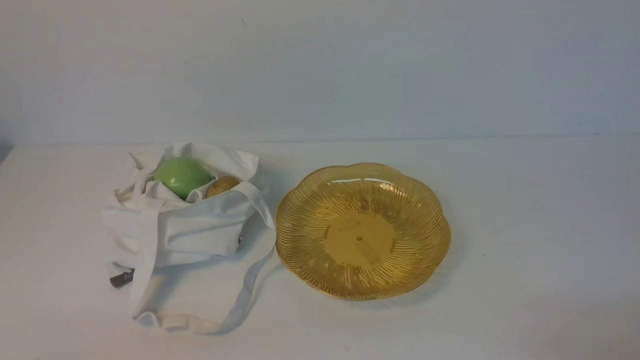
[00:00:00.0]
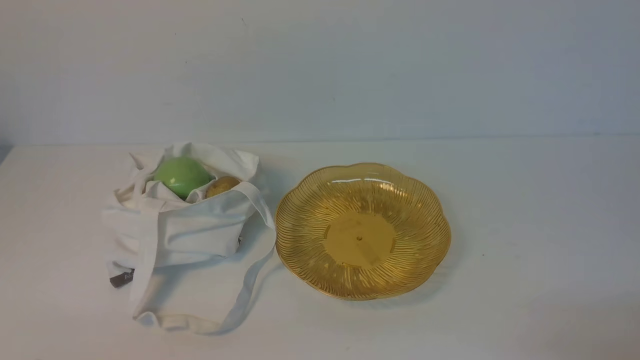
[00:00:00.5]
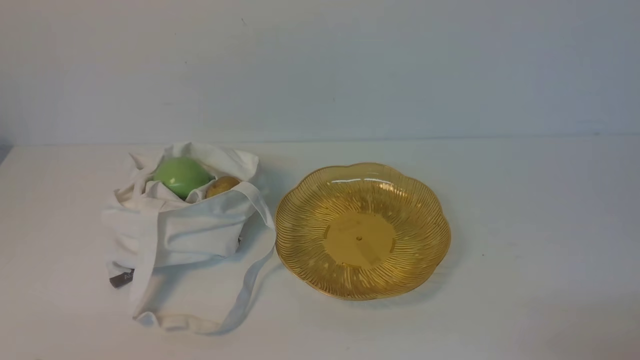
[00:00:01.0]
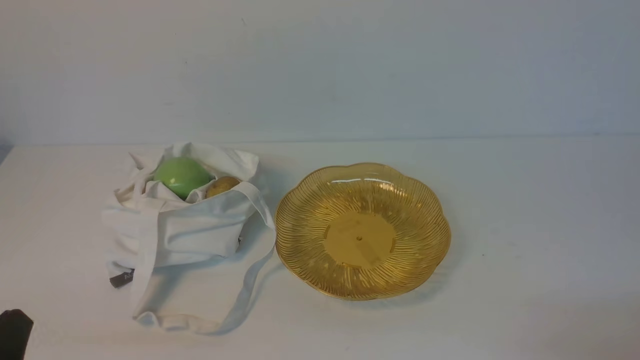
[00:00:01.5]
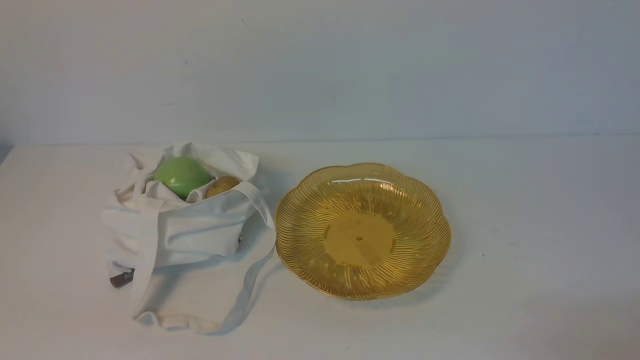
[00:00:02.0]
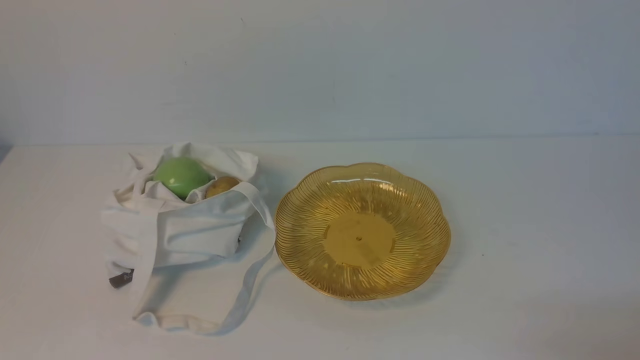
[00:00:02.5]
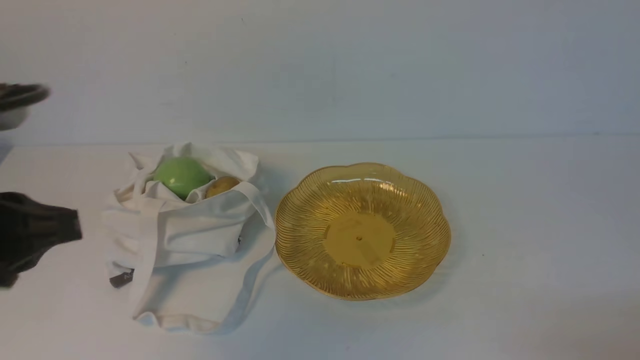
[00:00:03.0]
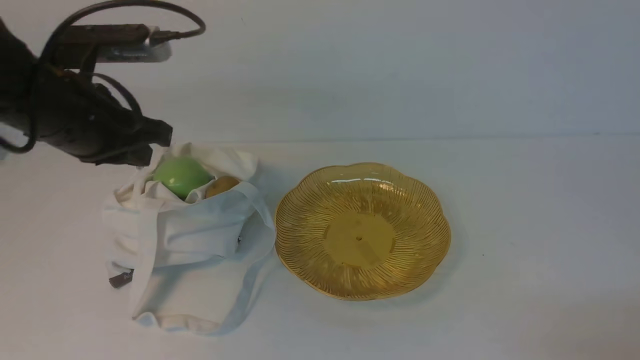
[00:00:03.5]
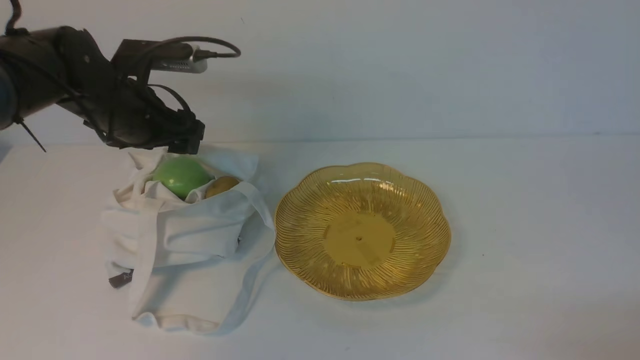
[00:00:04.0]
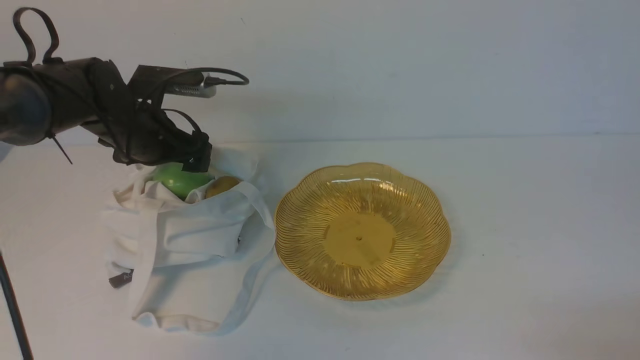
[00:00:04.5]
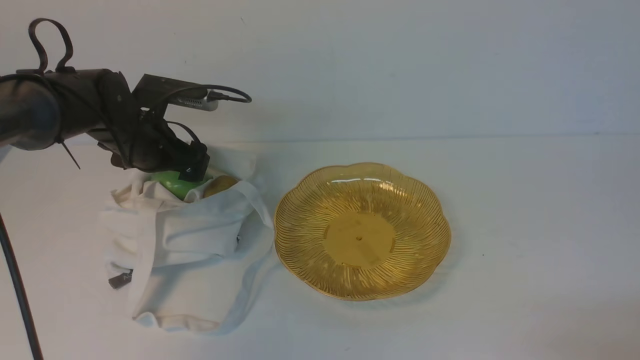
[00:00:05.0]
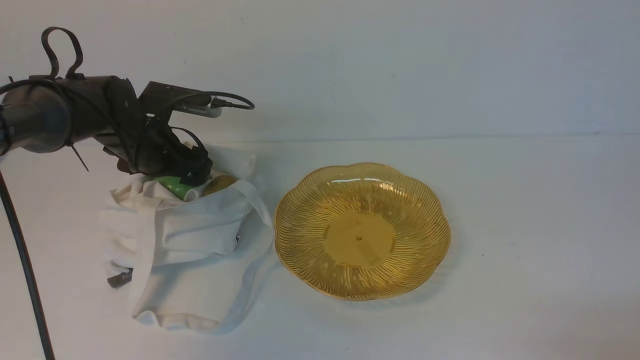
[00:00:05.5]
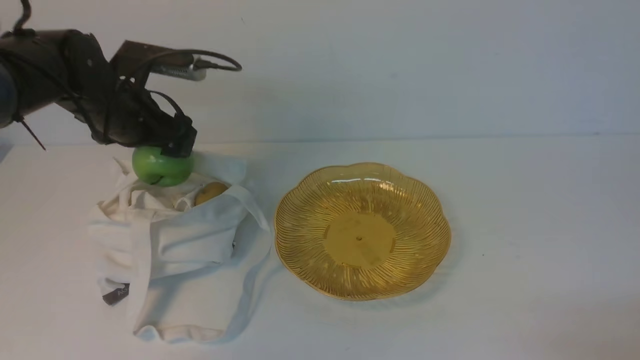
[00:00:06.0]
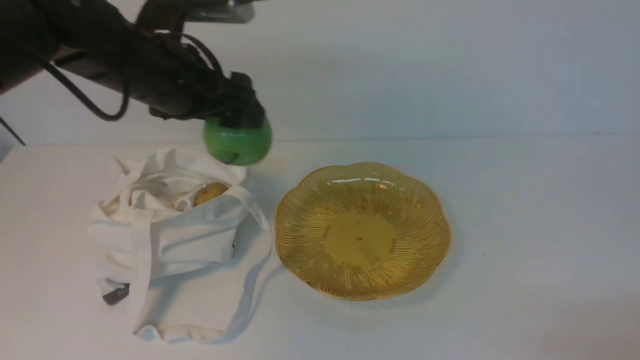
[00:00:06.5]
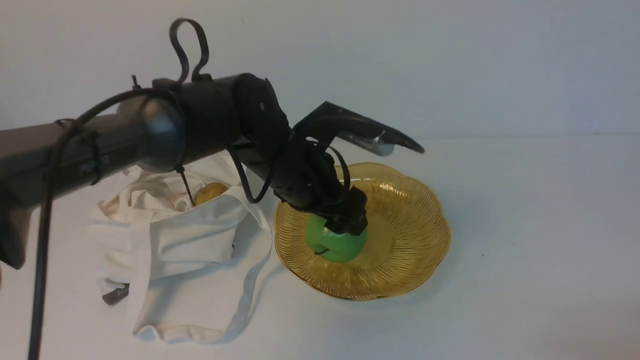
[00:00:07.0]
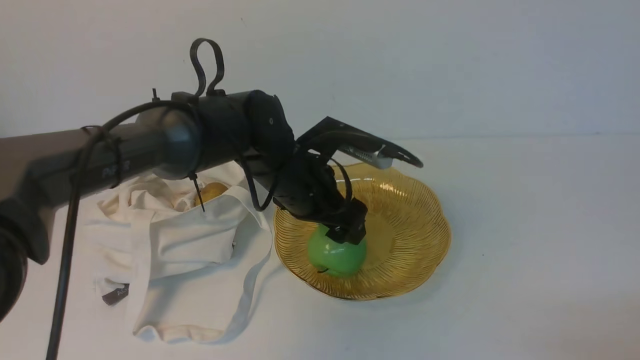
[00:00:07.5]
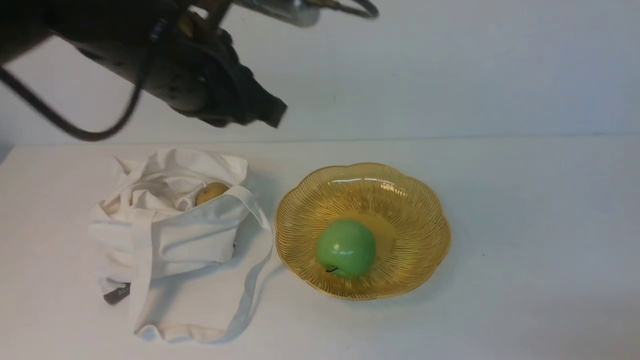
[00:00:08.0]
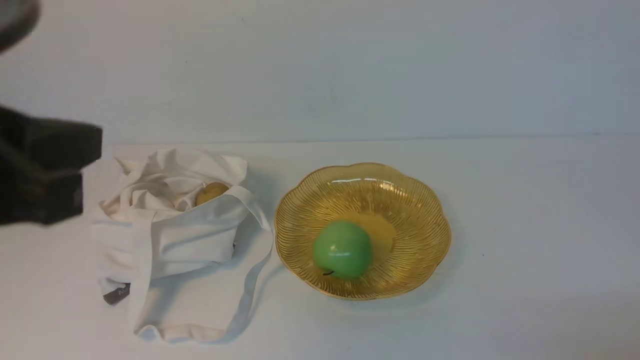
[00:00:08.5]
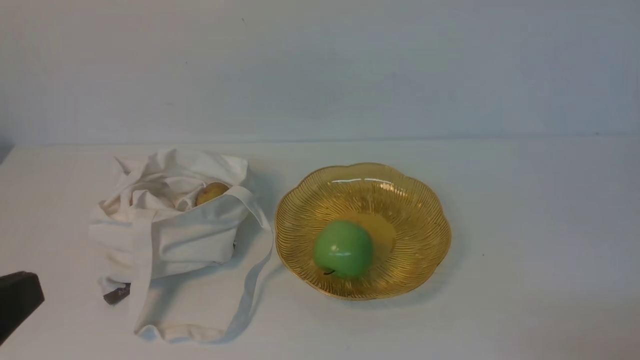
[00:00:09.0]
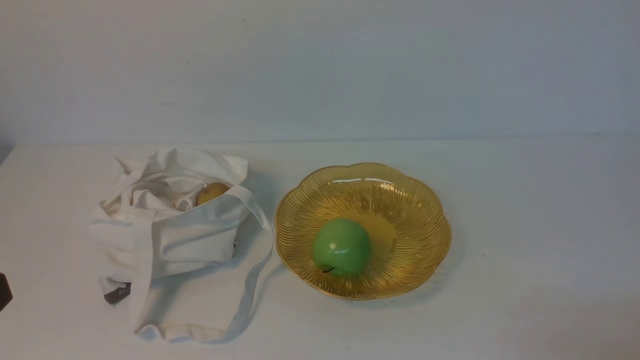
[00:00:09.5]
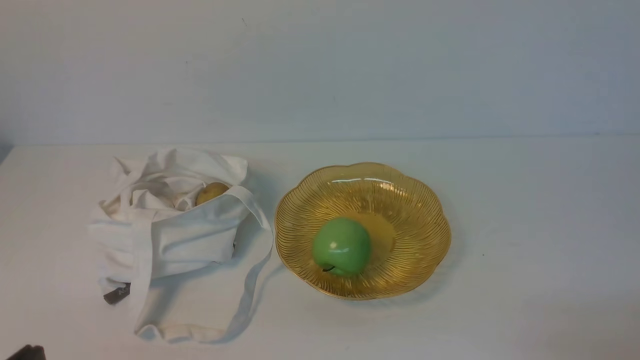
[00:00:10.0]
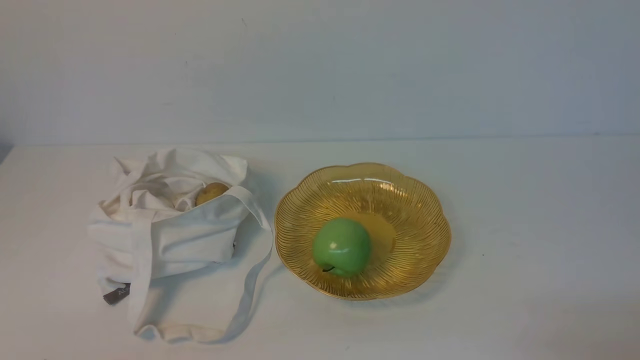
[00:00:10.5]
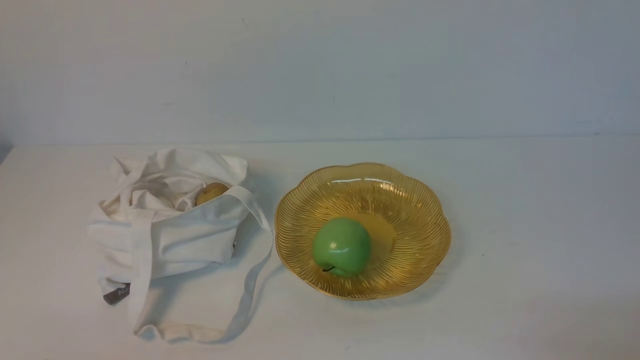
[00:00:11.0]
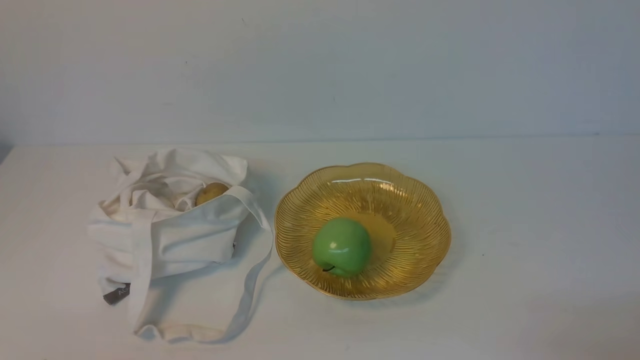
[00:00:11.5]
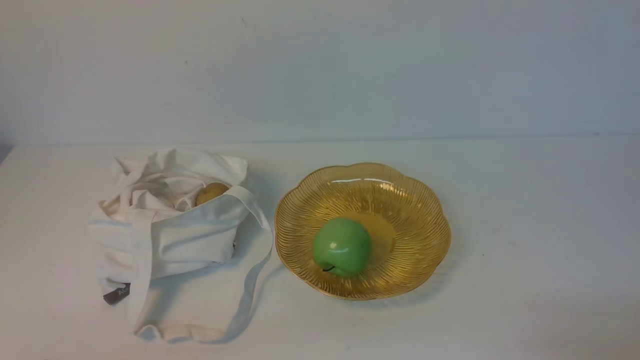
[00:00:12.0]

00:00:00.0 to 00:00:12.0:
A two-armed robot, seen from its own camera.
Step, 00:00:06.0 to 00:00:07.5: use the right arm to put the apple into the empty plate on the left.
00:00:02.0 to 00:00:04.0: The left gripper travels forward by roughly 35 cm, and opens.
00:00:06.0 to 00:00:08.0: The left gripper goes approximately 20 cm to the right, upward and backward, and closes.
00:00:08.0 to 00:00:10.0: The left gripper moves backward, to the left and downward, roughly 35 cm, and closes its fingers.
